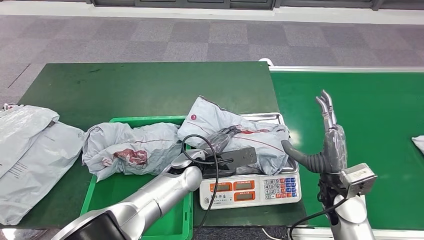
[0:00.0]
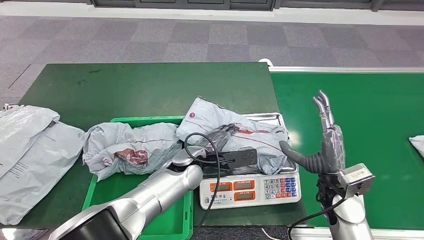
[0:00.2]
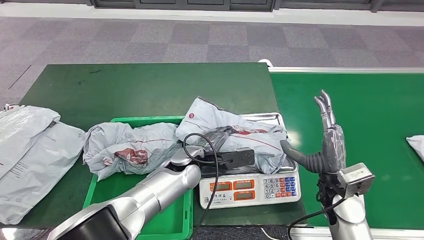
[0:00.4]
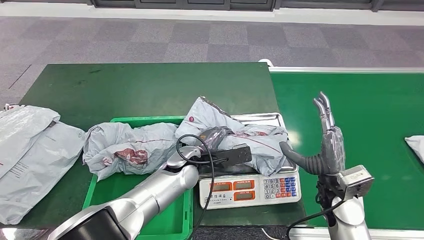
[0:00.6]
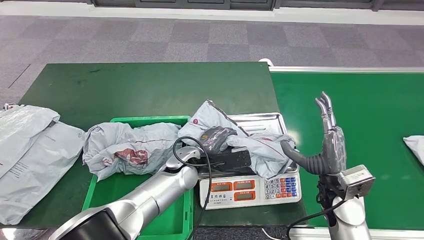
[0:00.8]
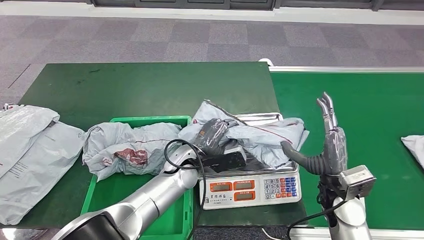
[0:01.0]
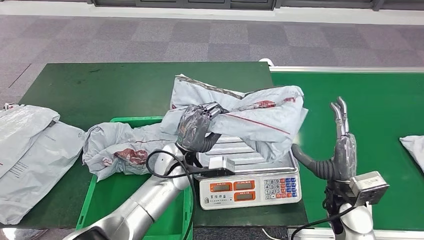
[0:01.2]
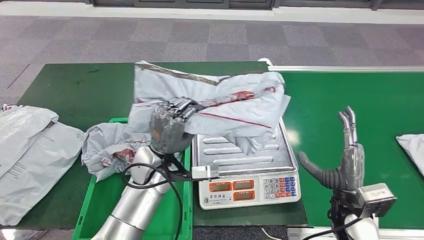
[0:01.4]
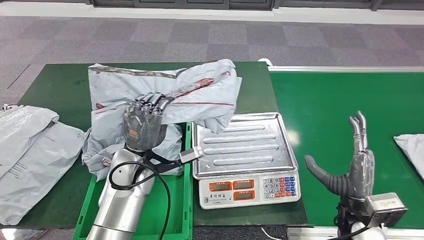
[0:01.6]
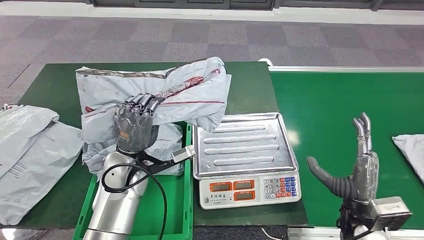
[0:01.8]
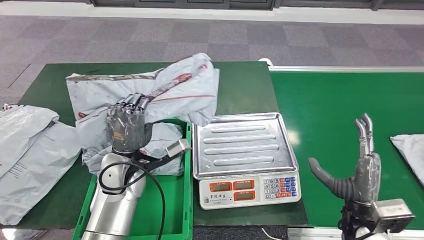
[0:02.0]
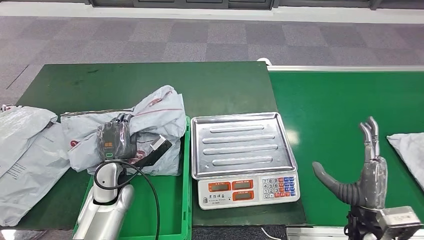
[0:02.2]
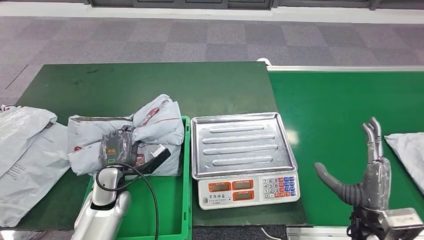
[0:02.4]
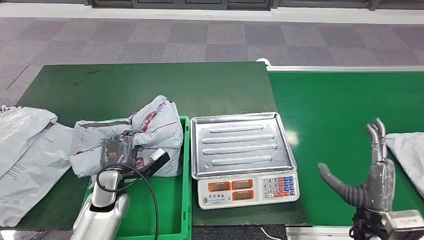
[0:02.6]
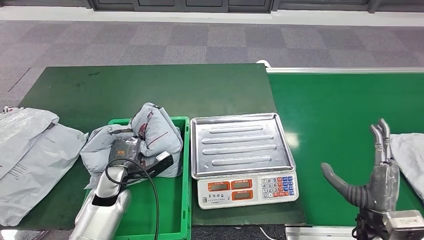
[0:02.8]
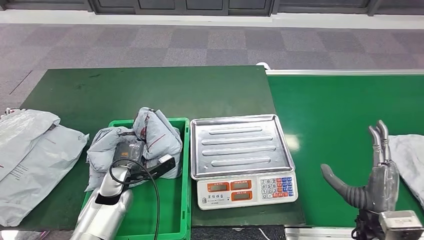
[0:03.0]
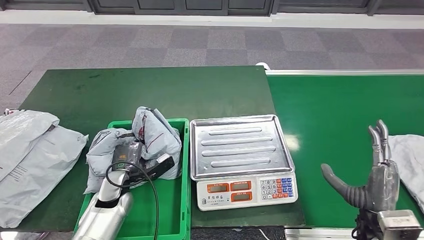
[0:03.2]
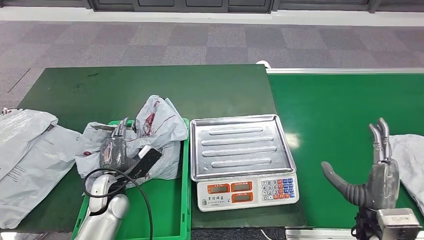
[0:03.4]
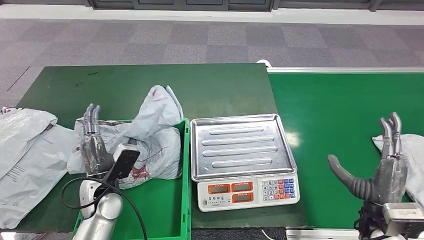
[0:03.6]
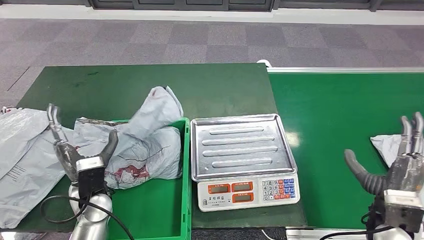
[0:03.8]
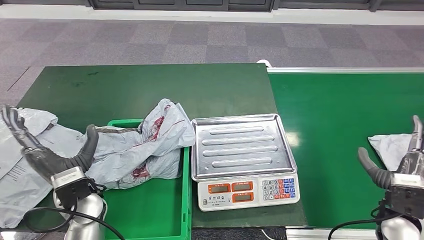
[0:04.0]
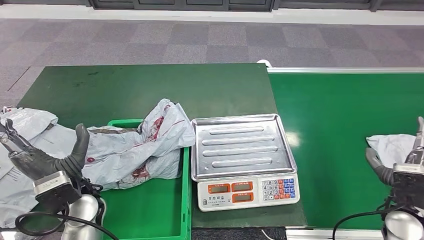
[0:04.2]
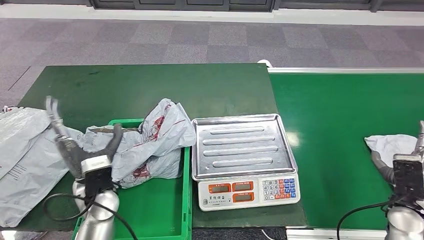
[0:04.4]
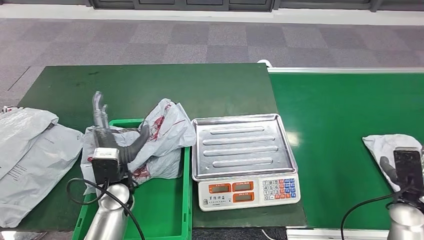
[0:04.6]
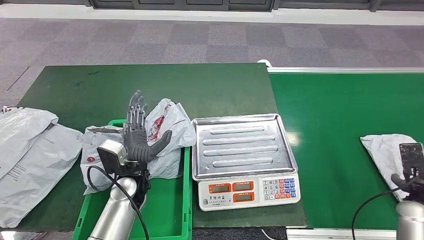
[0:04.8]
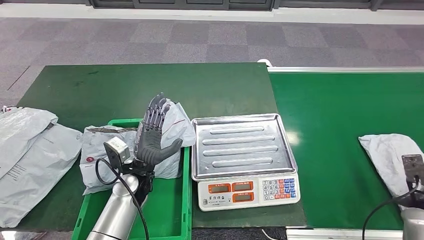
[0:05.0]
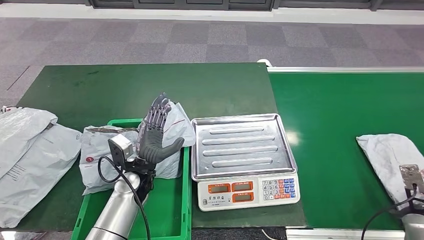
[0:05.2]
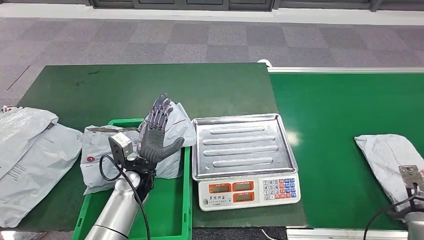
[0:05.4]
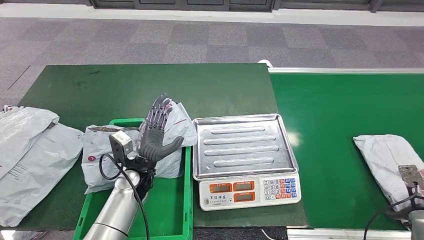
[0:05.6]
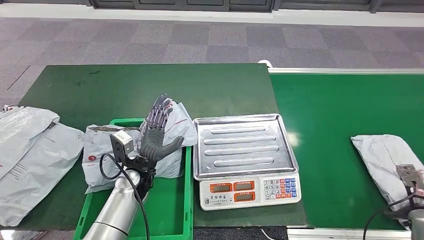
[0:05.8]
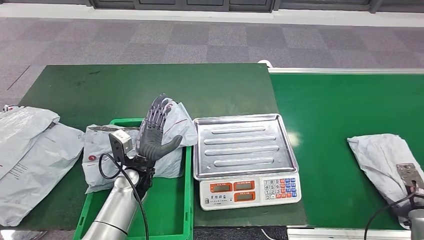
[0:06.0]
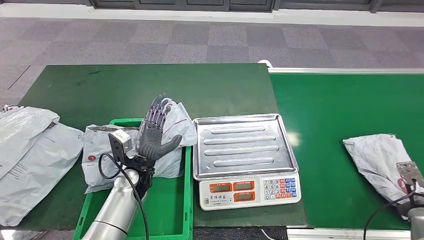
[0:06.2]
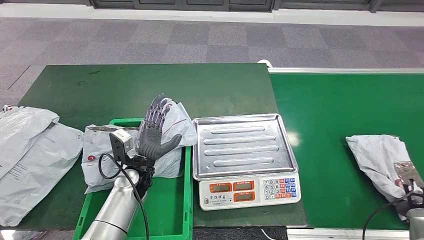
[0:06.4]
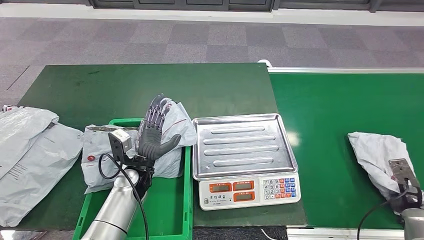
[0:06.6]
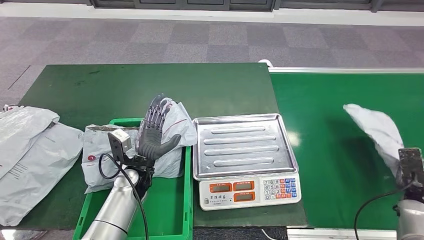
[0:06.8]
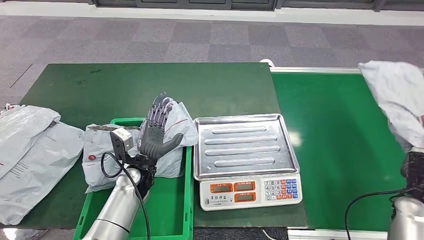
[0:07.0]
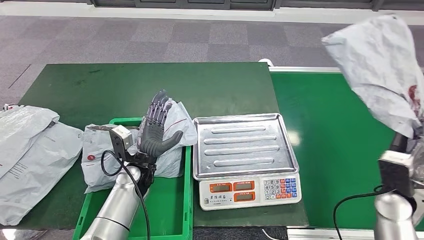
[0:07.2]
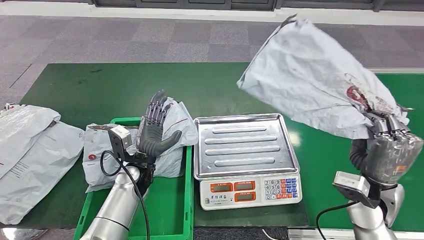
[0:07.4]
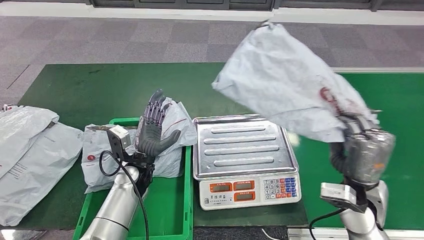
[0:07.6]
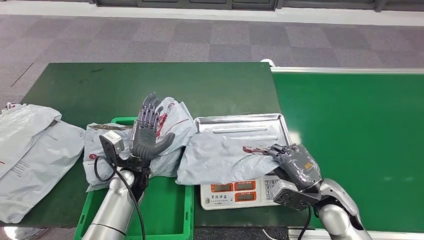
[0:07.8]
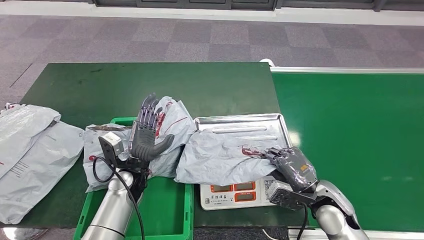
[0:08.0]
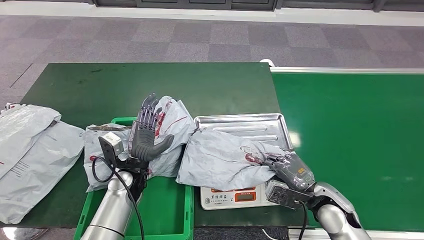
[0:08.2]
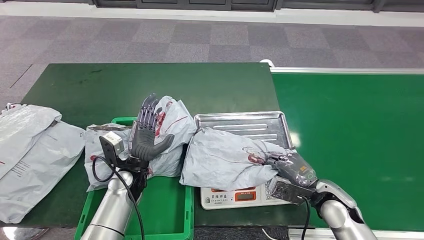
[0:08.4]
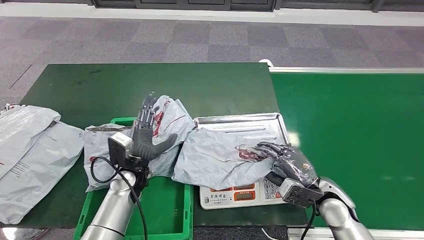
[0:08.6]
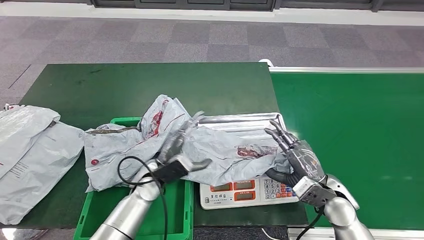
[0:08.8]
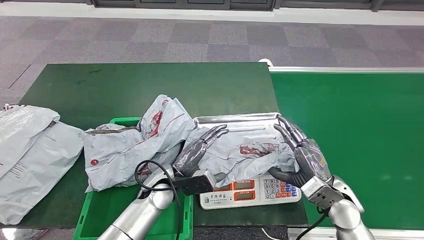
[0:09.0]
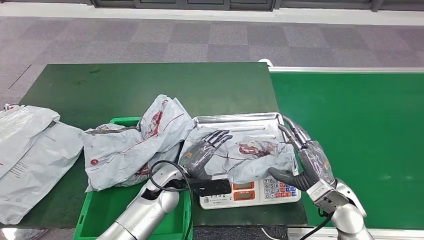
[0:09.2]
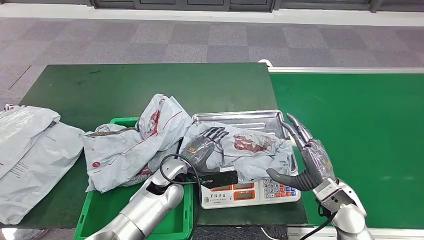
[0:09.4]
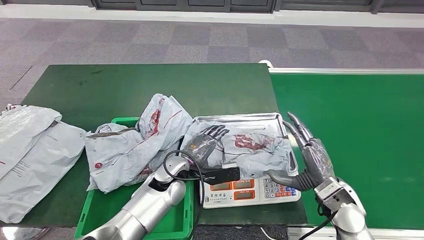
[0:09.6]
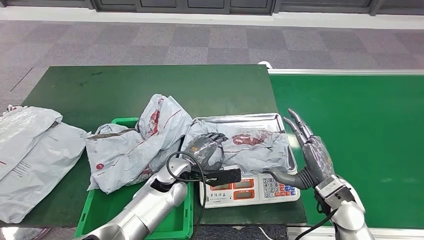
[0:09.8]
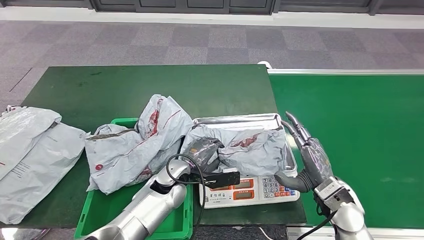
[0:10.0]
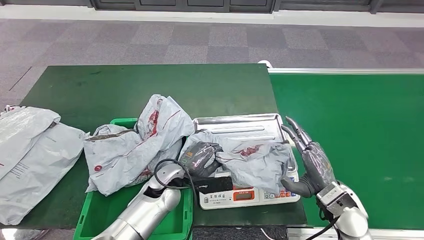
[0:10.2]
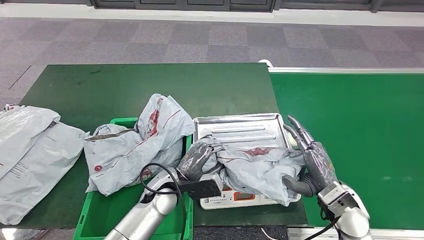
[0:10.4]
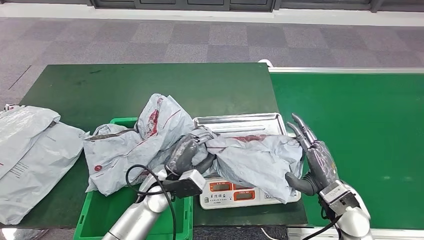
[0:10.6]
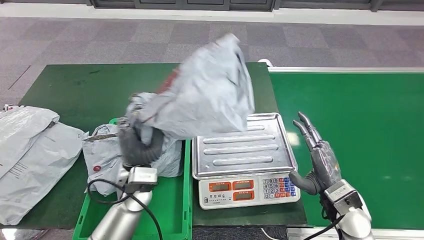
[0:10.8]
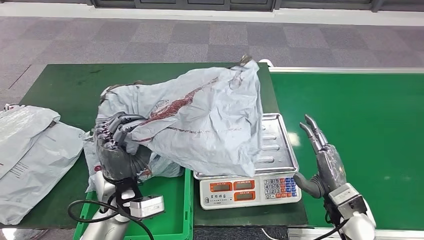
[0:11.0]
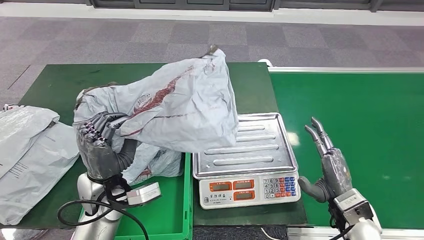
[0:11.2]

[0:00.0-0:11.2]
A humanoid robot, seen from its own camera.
Step, 0:00.0 to 0:01.8: Pick up the parcel from the inbound machine.
Step, 0:02.4 to 0:04.8: Place the parcel into the delivery box.
Step, 0:05.4 to 0:07.4: Pick up the parcel from the conveyor belt.
Step, 0:07.6 to 0:09.4: Place the parcel onto the inbound machine.
0:04.8 to 0:06.4: The right hand shifts about 5 cm downward.

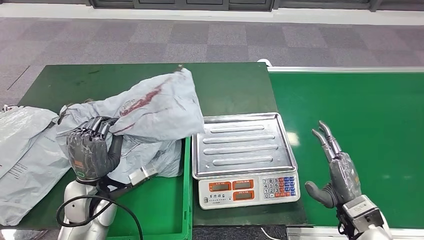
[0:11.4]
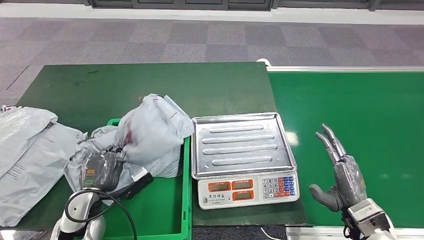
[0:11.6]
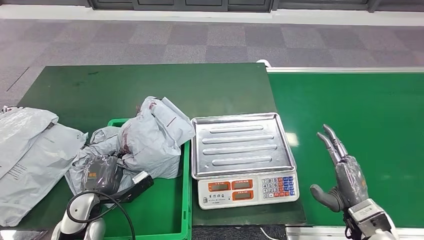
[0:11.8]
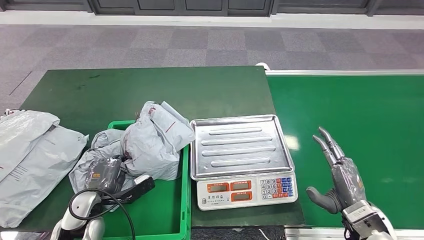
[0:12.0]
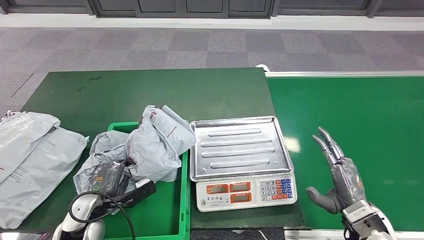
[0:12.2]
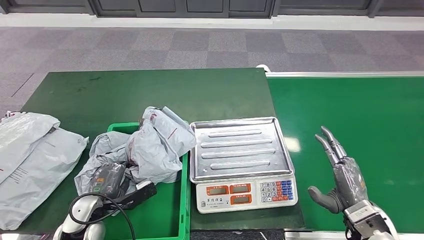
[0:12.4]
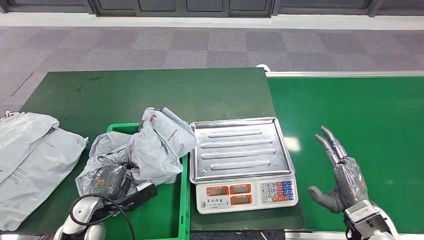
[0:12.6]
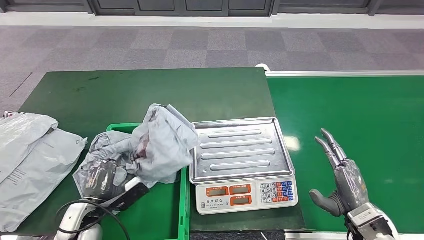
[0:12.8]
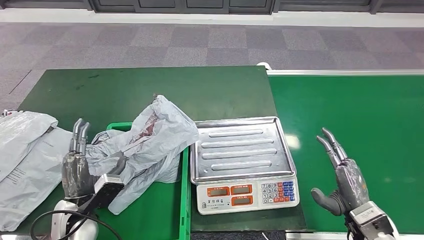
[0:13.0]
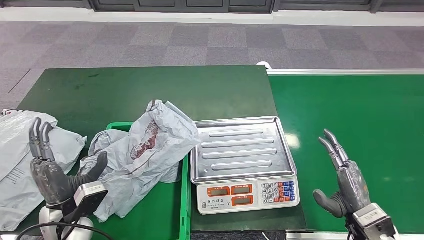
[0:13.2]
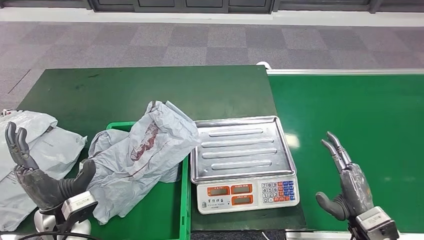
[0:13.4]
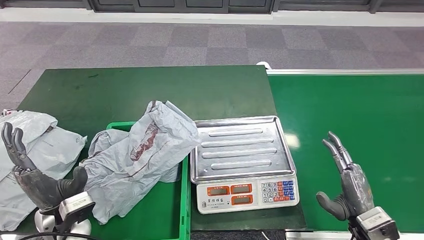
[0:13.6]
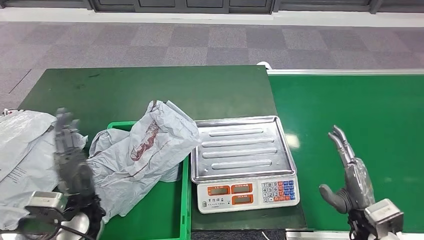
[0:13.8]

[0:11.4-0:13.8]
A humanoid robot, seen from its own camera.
Step, 0:11.8 to 0:13.8: Place the parcel into the delivery box.

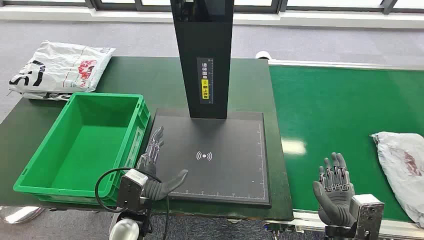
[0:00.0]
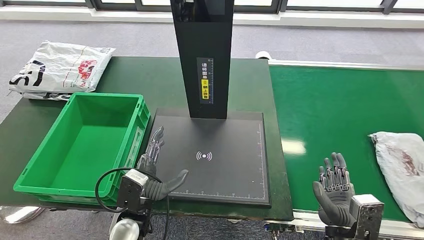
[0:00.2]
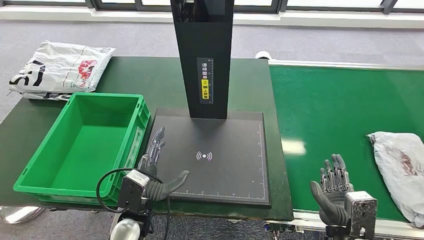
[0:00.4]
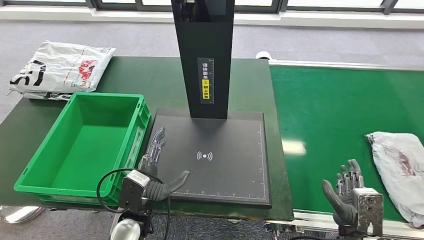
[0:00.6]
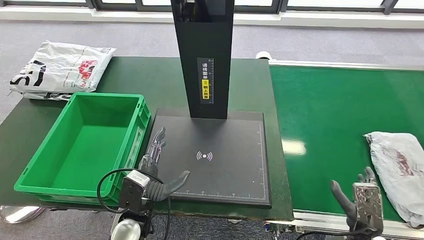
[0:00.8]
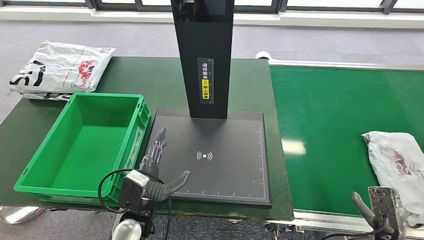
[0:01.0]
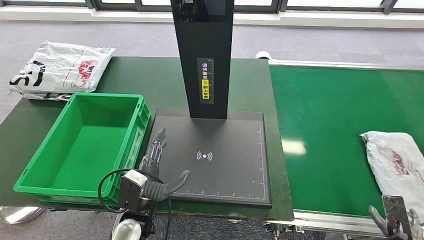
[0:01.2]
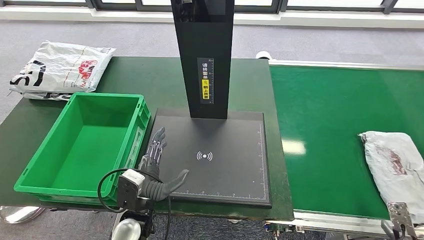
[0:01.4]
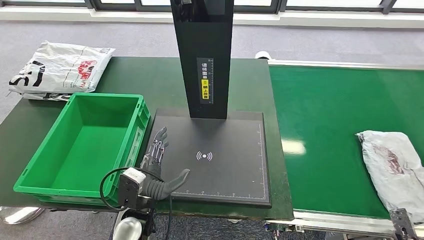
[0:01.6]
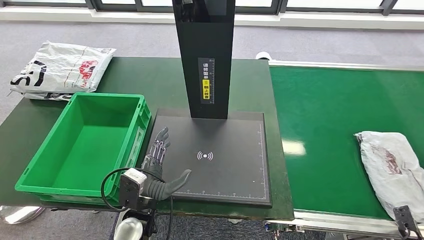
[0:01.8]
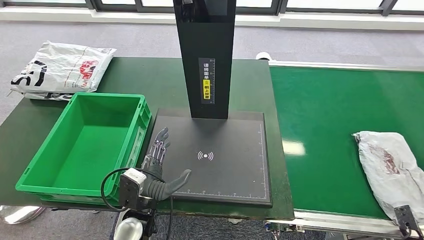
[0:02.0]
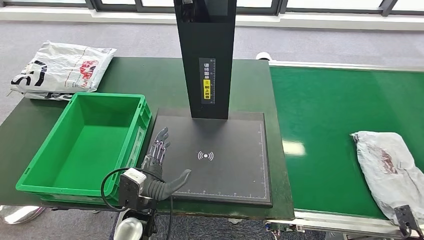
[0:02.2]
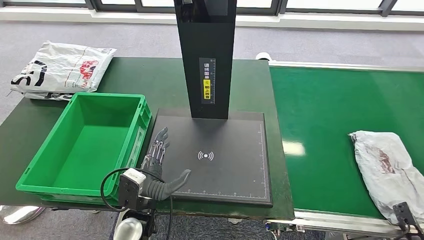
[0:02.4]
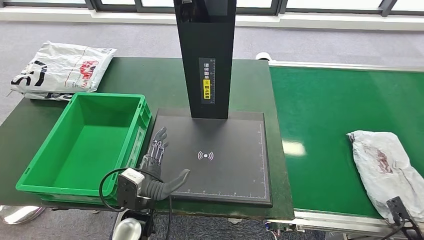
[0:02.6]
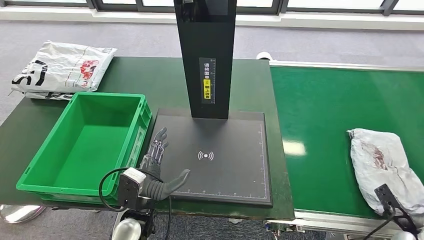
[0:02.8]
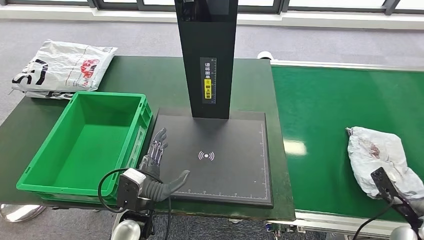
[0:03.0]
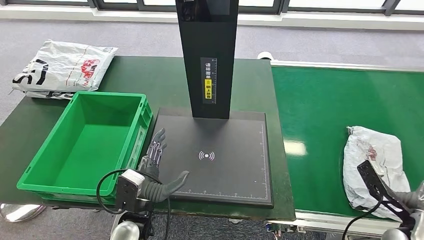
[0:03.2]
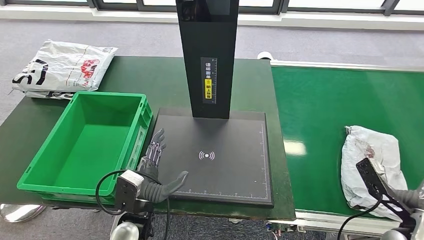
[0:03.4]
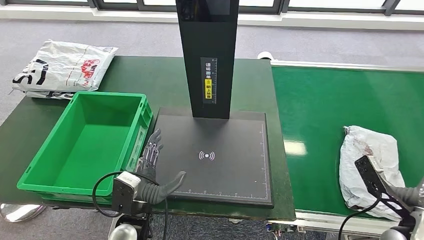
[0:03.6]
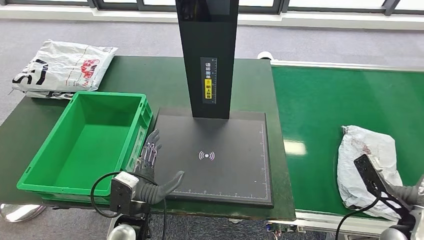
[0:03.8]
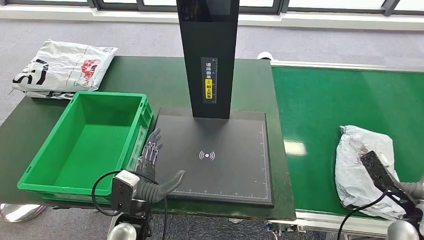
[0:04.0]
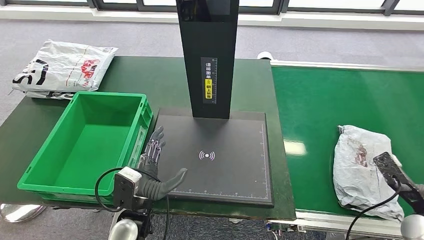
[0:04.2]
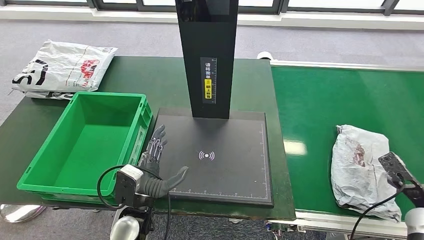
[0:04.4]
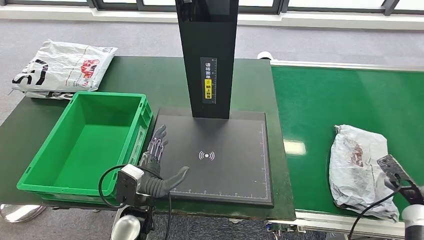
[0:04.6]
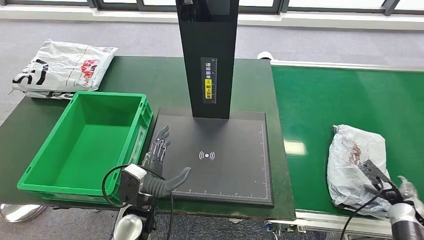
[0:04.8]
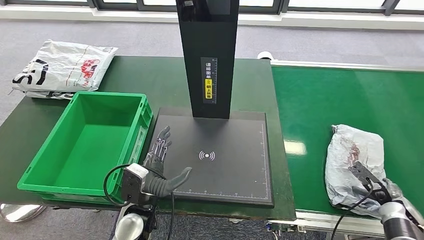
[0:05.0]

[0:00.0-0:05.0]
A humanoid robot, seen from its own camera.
0:03.4 to 0:05.0: The right hand moves downward, forward and to the right, some 15 cm.
